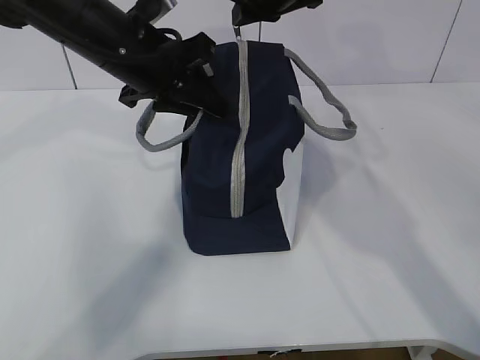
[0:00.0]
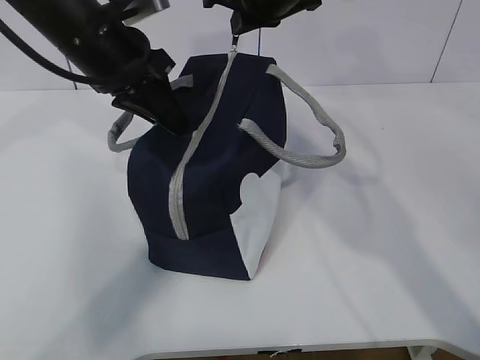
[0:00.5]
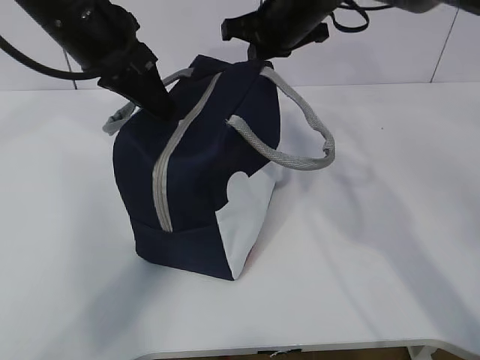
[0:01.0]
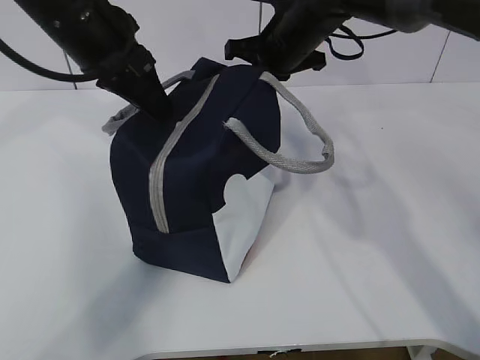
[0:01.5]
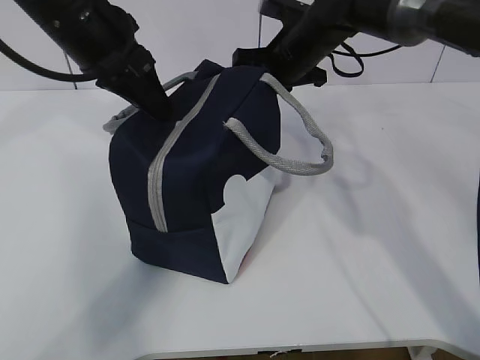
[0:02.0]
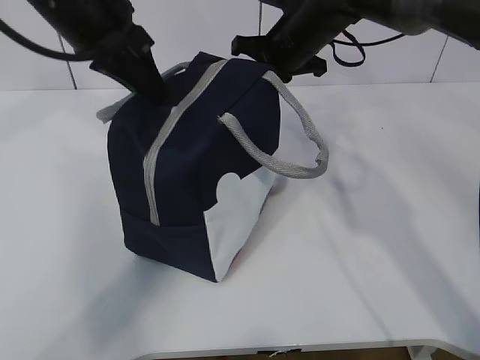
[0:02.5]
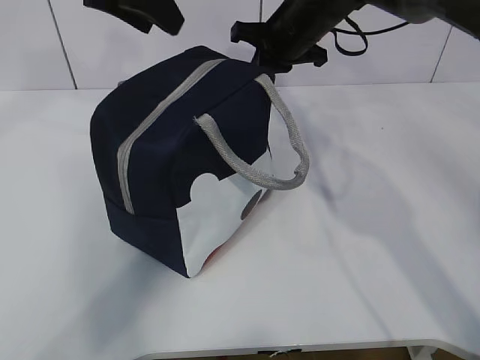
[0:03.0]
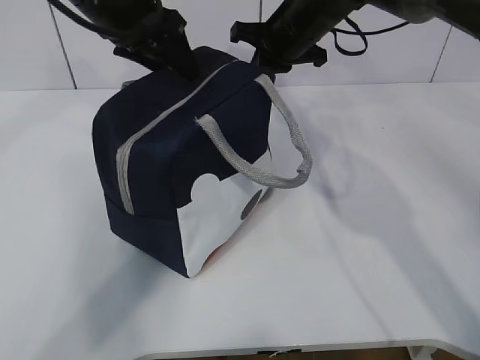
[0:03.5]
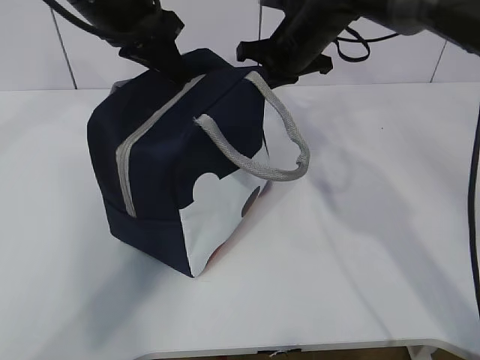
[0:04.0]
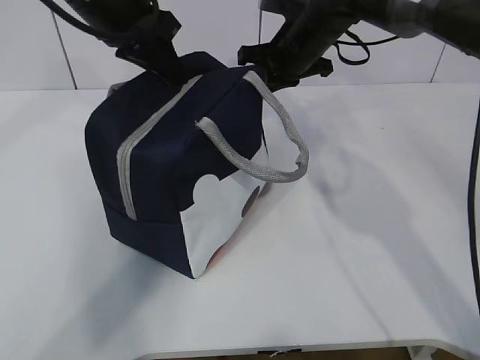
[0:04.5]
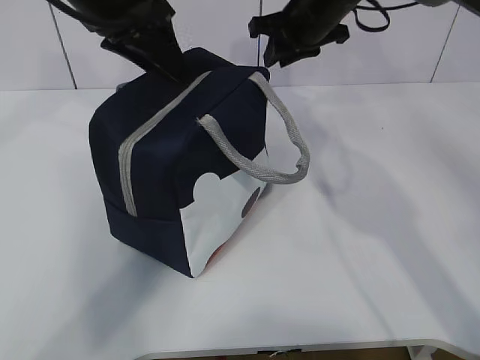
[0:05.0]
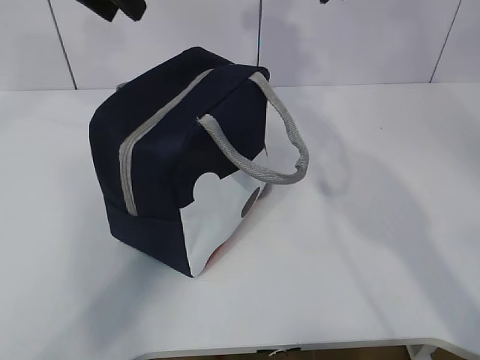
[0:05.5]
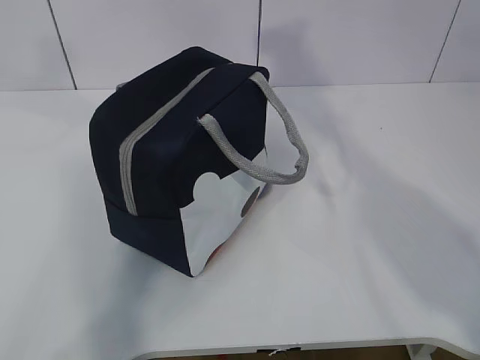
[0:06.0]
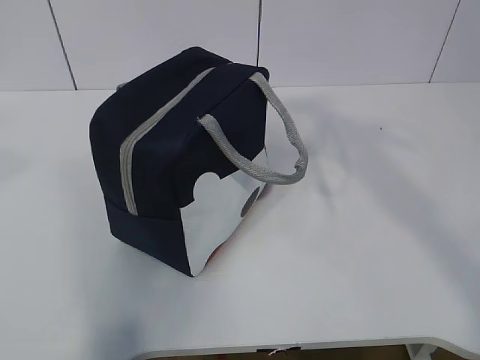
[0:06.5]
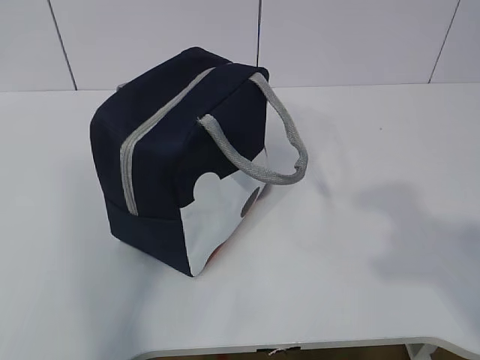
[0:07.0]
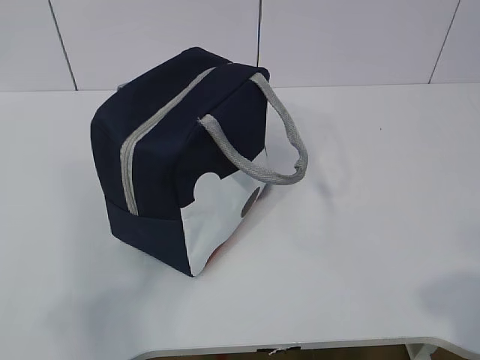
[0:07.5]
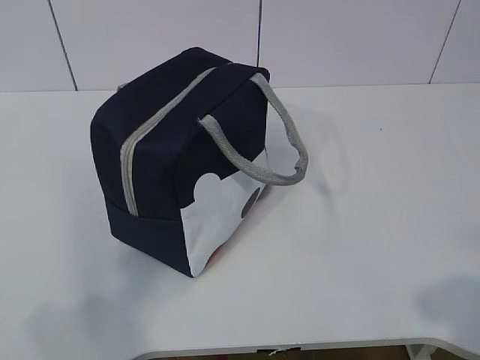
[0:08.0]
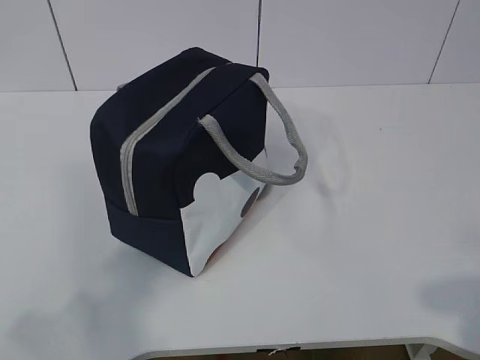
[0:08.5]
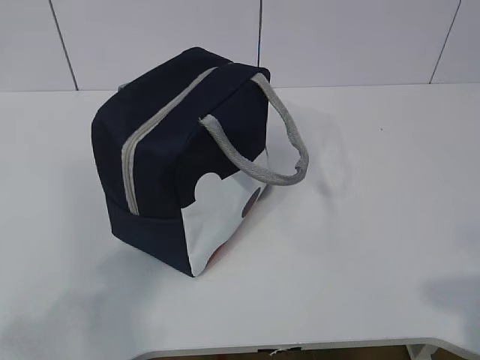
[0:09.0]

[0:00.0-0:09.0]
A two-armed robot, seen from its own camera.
Step, 0:00.0 to 0:05.0: zip up the zipper to close the bag.
0:00.0 to 0:02.0: The right gripper shifts some 10 cm downward.
0:02.0 to 0:04.5: The left gripper opens, then closes once more.
0:04.5 to 0:07.0: The left gripper goes approximately 40 cm backward and to the left, and opens up. Meanwhile the right gripper heads backward, covering roughly 50 cm, and opens.
0:07.0 to 0:09.0: The right gripper shifts about 15 cm downward and backward; the left gripper moves downward, some 10 cm.

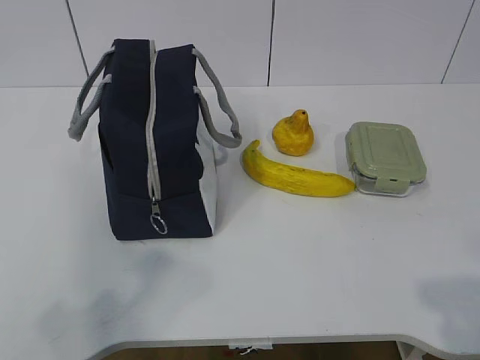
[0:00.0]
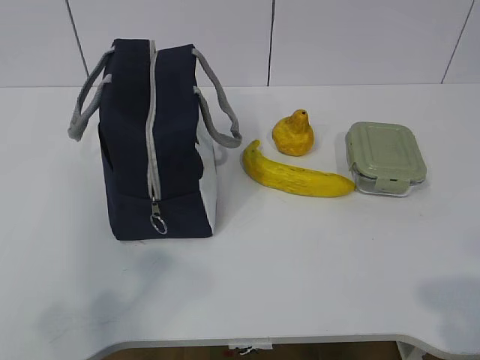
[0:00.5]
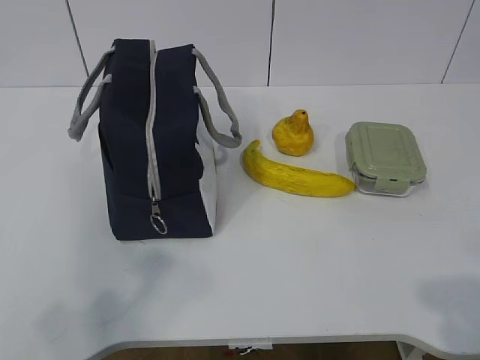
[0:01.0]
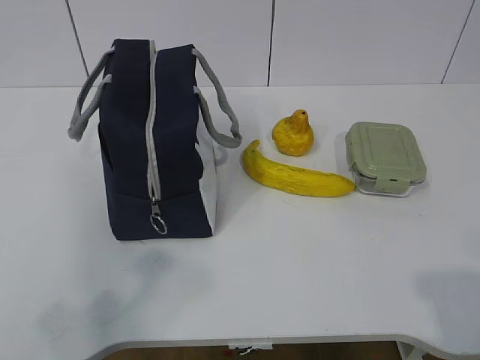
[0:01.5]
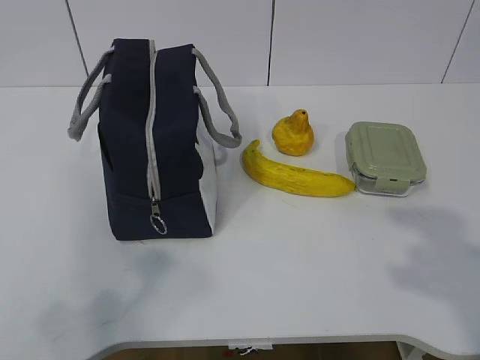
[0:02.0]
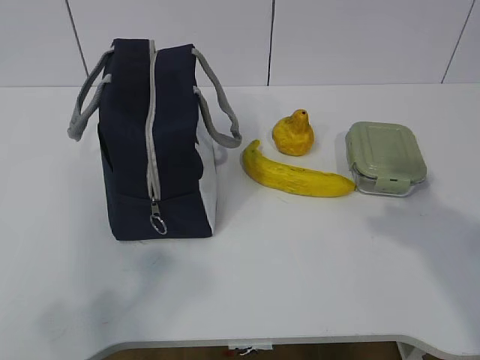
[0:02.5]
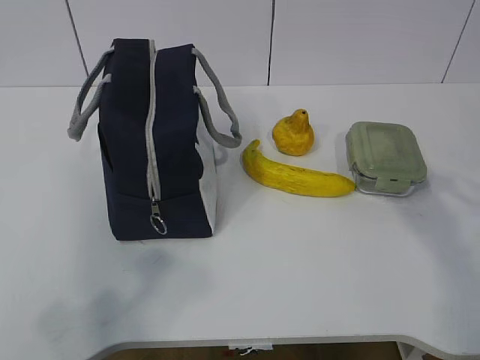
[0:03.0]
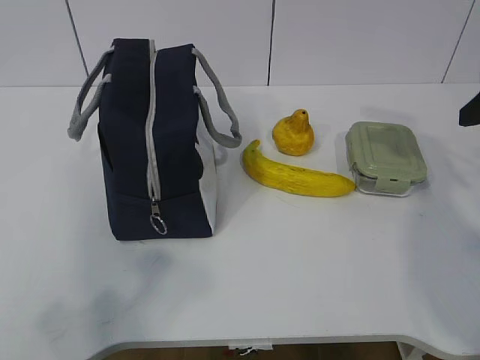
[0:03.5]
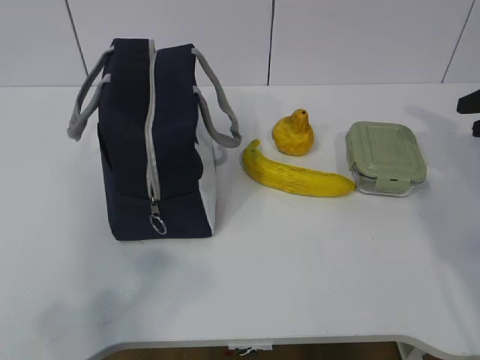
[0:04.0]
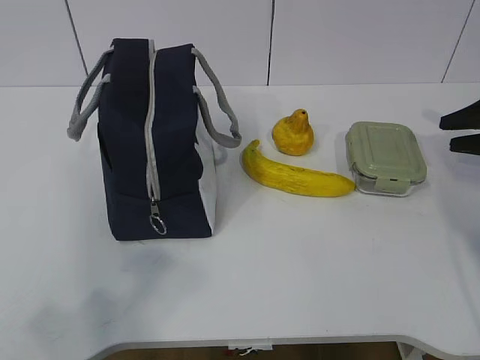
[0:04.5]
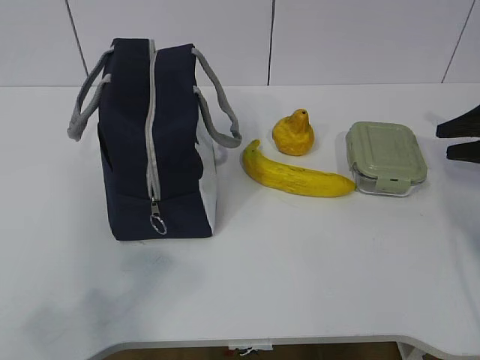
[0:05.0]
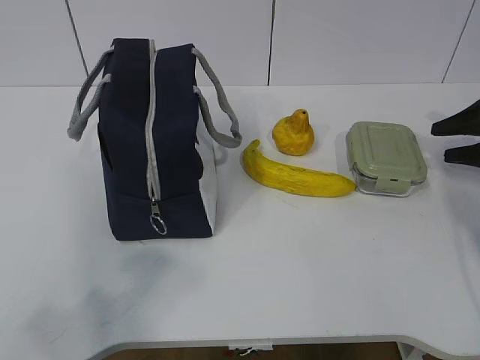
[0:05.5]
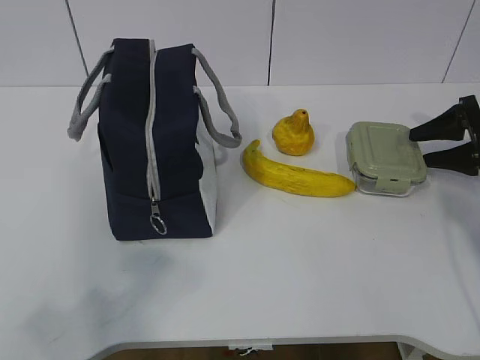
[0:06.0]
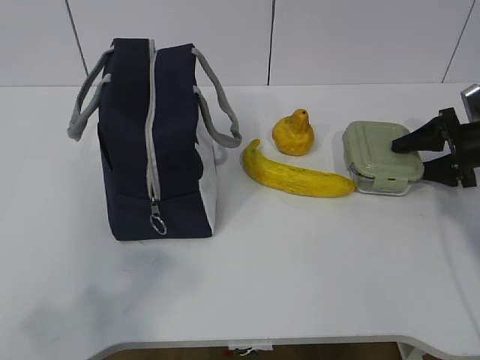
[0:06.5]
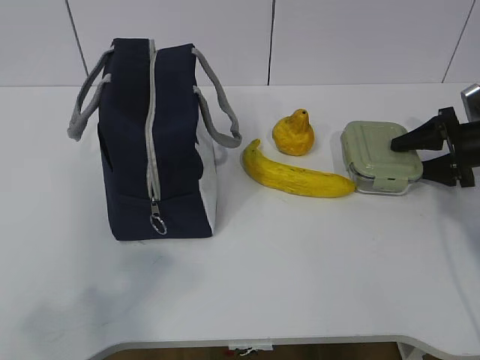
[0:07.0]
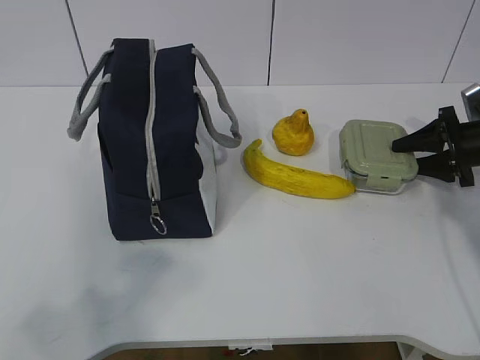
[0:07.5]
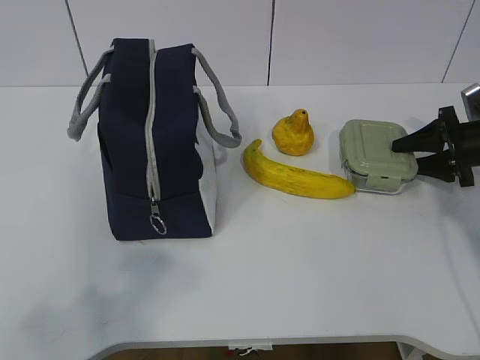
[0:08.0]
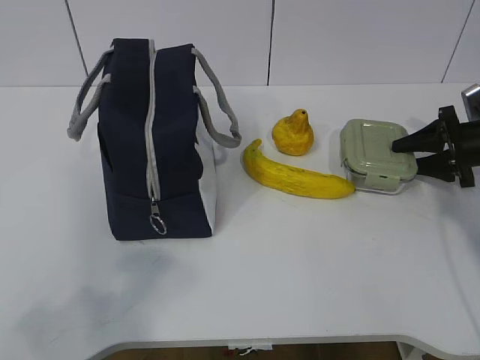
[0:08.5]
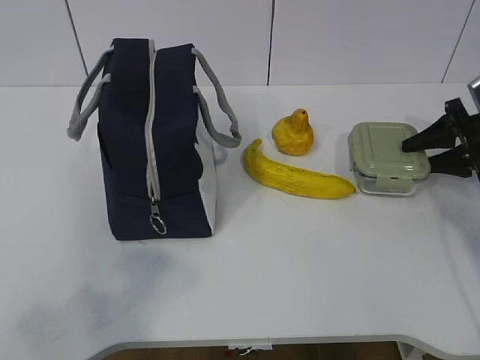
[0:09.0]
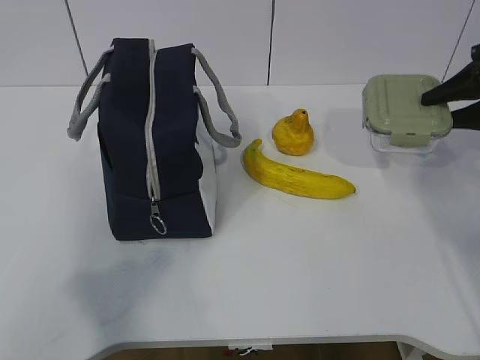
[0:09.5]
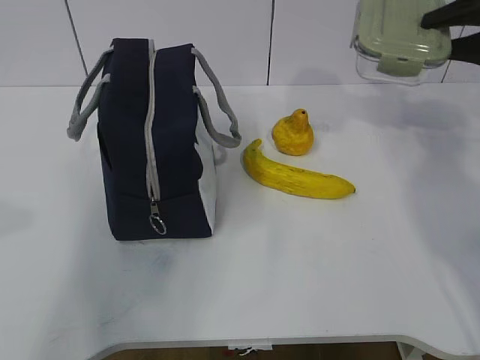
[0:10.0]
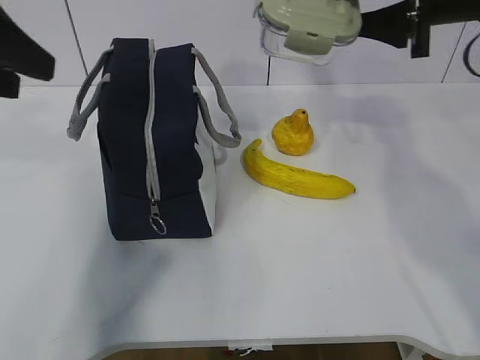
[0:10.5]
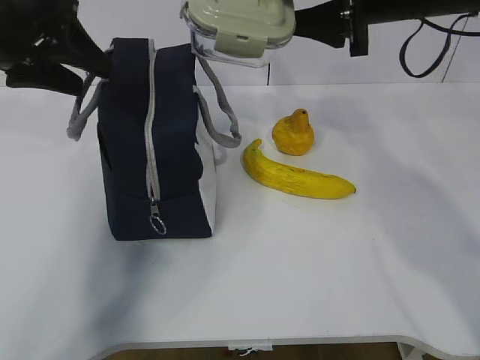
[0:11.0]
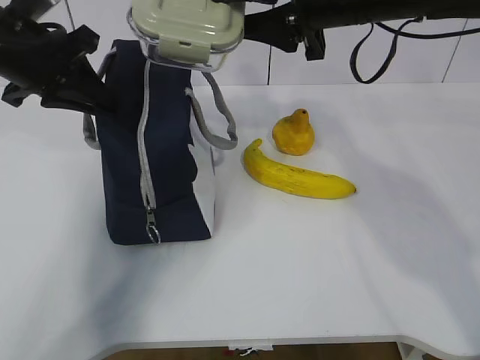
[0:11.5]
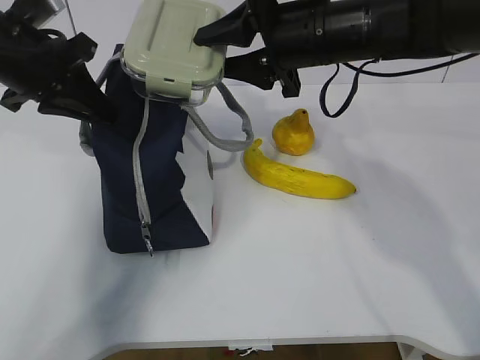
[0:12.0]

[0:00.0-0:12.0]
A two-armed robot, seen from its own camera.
Step, 0:00.0 to 0:07.0: Grab the lunch box with your right hand.
Step, 0:07.5 to 0:09.5: Grab the lunch bag with your left hand.
0:02.0 to 0:04.0: The right gripper heads forward, covering roughly 30 cm.
0:04.0 to 0:06.0: The right gripper is displaced downward and forward by some 15 cm.
0:06.0 to 0:08.0: There are only small adjustments of the grippers.
0:08.0 to 0:10.0: The right gripper goes some 20 cm upward.
0:10.0 to 0:12.0: The left gripper travels forward by some 25 cm, and closes up; the right gripper is displaced to the left by about 25 cm.

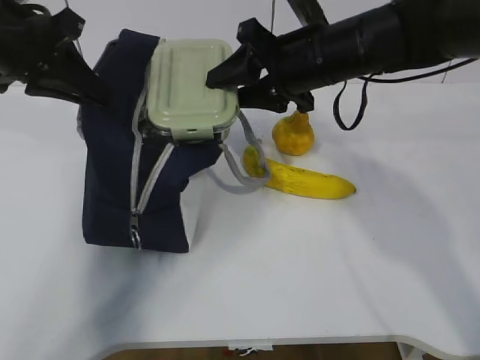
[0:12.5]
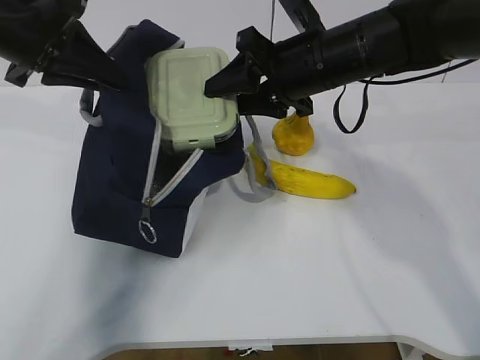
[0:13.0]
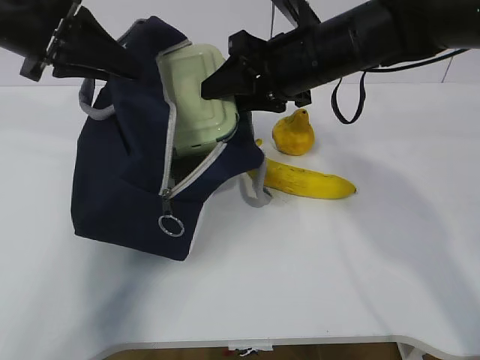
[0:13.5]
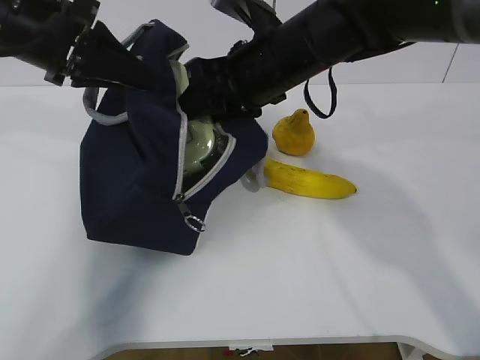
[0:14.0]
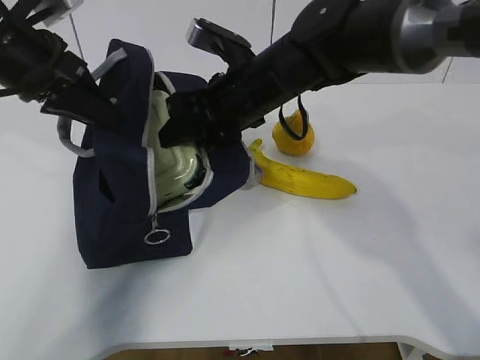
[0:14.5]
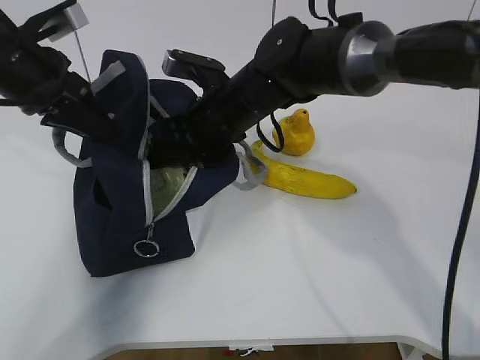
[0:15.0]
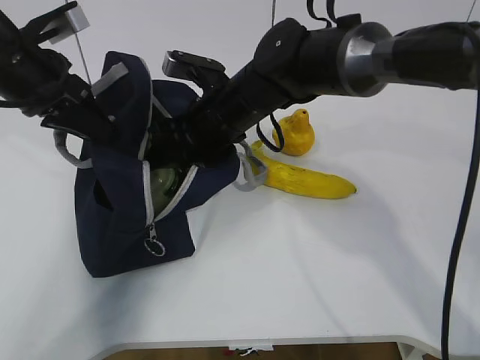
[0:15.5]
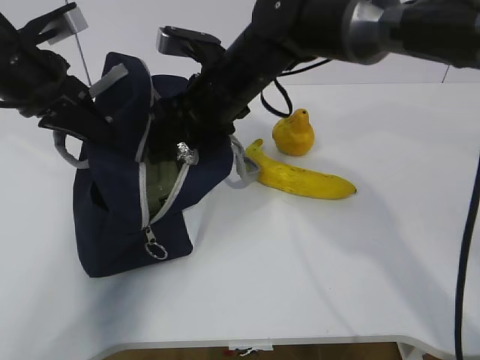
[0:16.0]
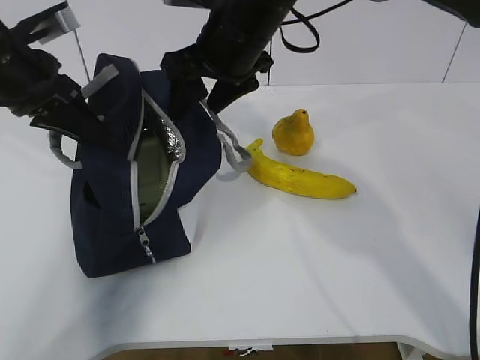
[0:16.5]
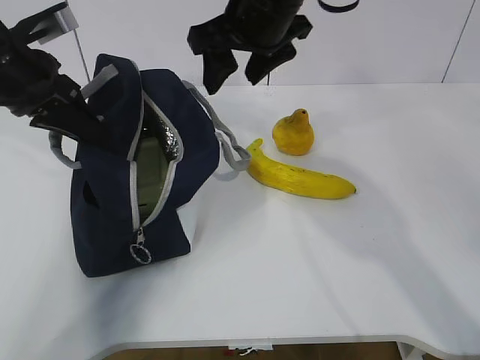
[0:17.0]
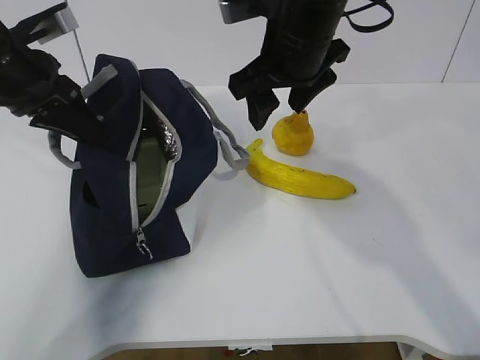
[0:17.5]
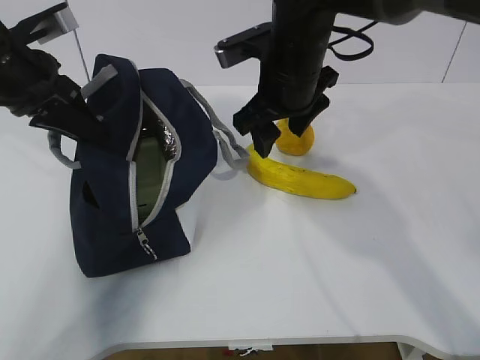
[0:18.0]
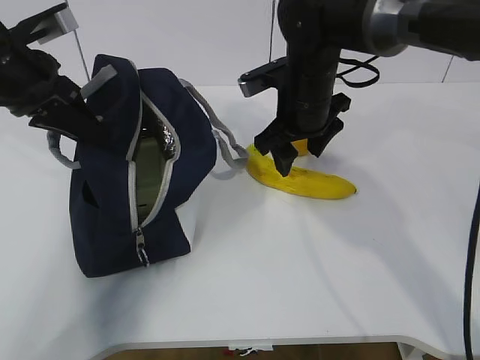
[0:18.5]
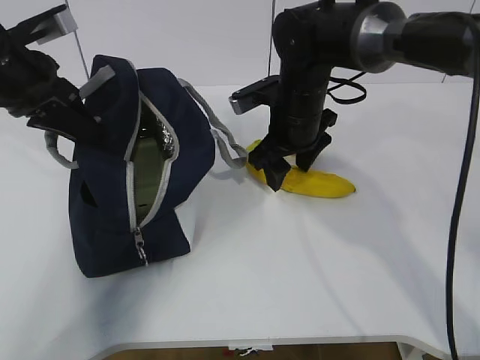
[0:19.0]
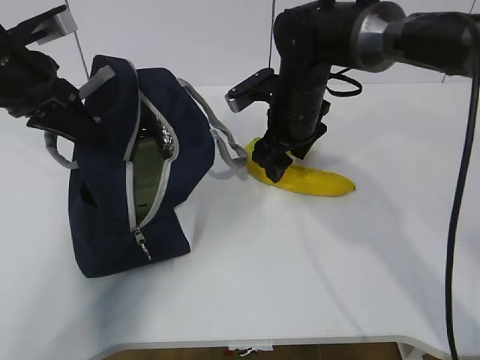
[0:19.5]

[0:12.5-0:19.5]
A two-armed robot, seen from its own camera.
Step, 0:13.5 to 0:17.0: Grab the banana with your right hand.
0:12.5 to 0:14.5: The right gripper travels to the left by about 5 cm.
0:14.5 to 0:16.0: The grippers make only small movements.
0:16.0 to 0:17.5: The right gripper travels upward and to the right by roughly 10 cm.
0:17.5 to 0:19.5: The right gripper shifts roughly 10 cm downward and forward.
